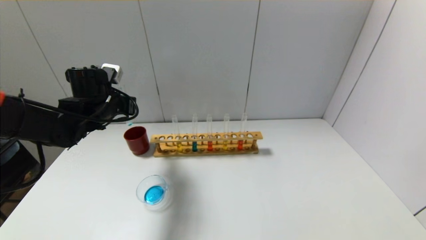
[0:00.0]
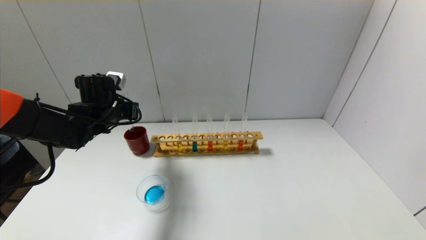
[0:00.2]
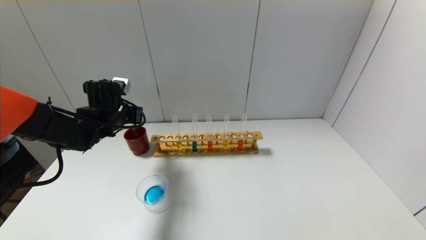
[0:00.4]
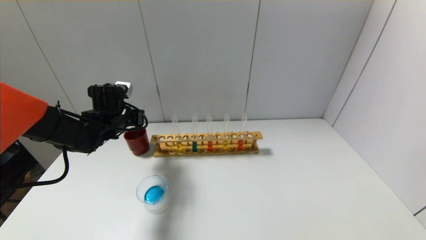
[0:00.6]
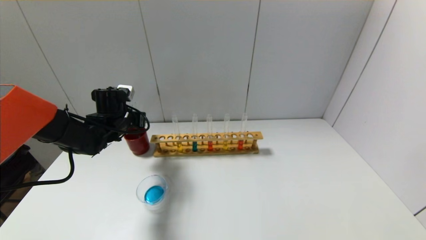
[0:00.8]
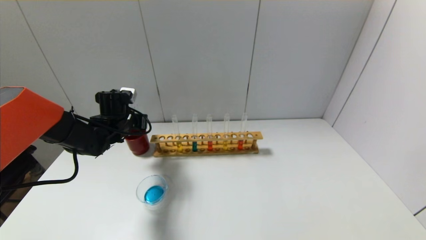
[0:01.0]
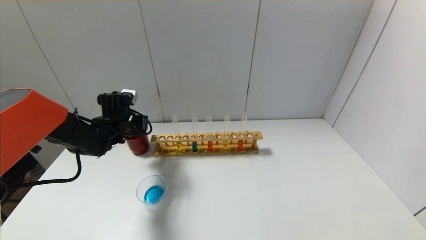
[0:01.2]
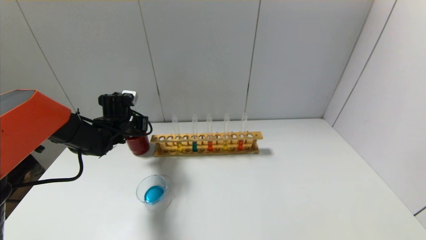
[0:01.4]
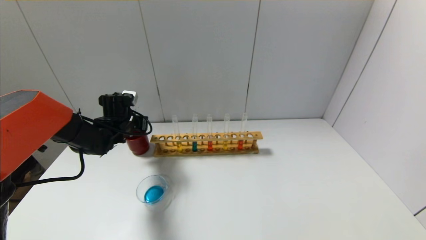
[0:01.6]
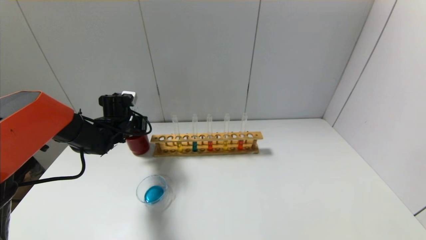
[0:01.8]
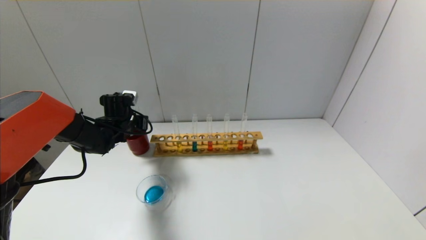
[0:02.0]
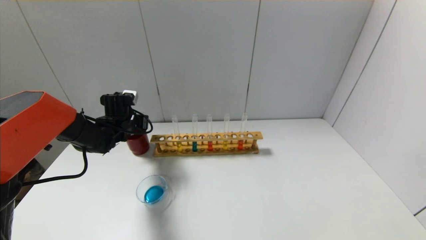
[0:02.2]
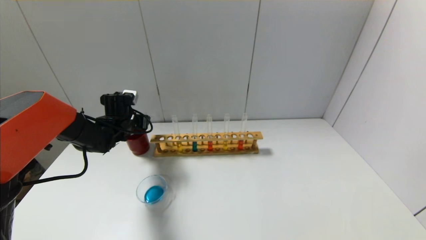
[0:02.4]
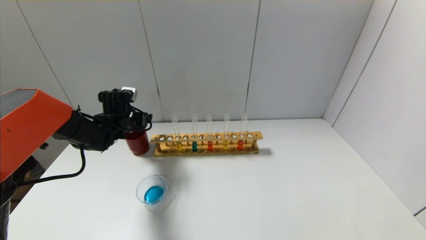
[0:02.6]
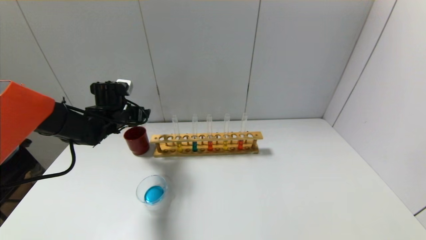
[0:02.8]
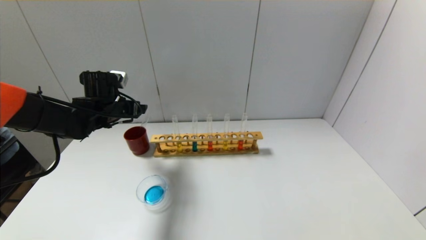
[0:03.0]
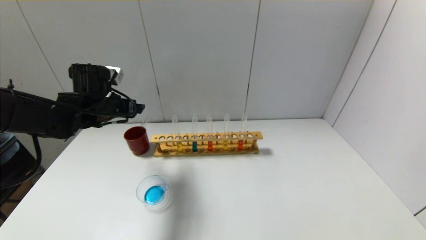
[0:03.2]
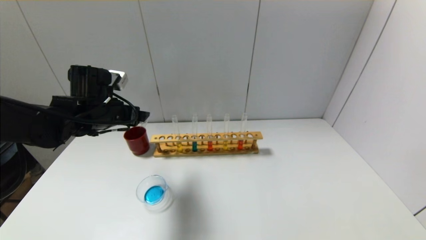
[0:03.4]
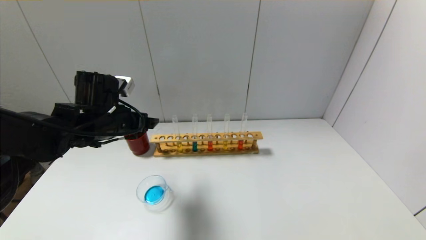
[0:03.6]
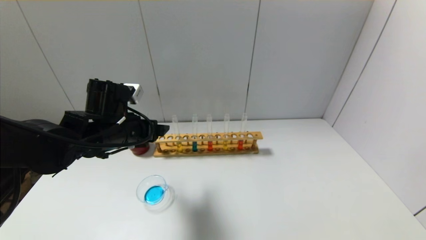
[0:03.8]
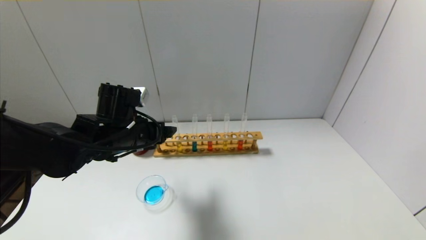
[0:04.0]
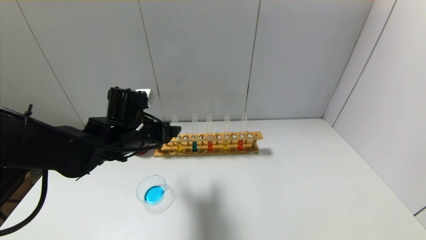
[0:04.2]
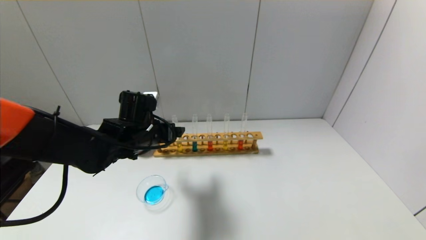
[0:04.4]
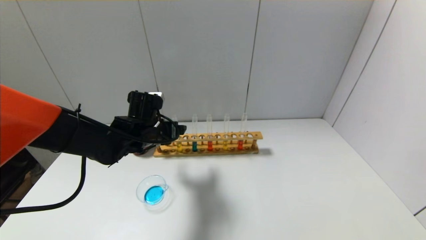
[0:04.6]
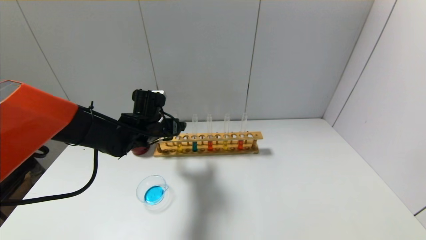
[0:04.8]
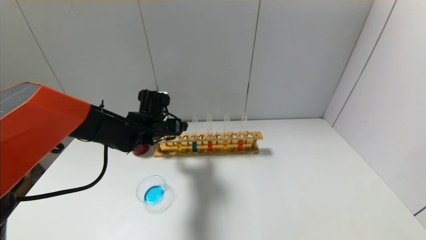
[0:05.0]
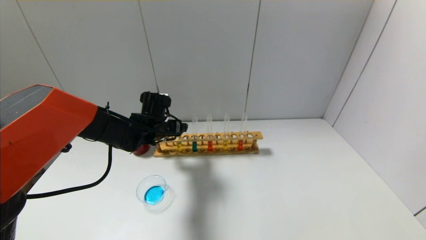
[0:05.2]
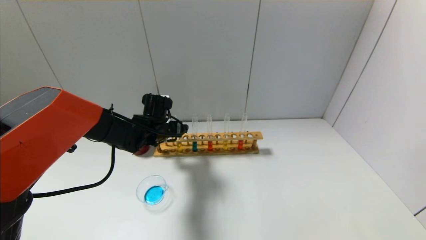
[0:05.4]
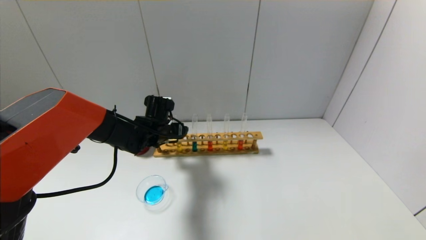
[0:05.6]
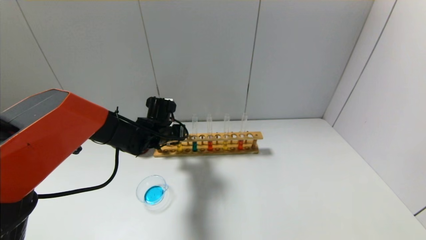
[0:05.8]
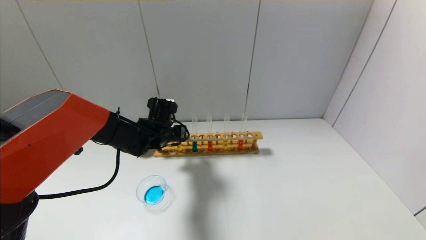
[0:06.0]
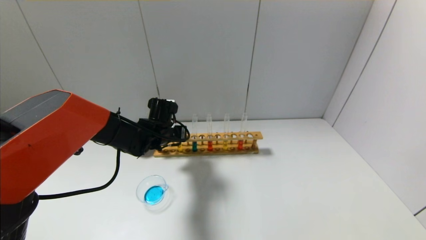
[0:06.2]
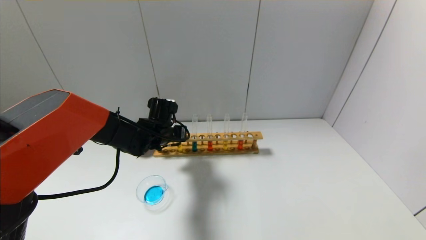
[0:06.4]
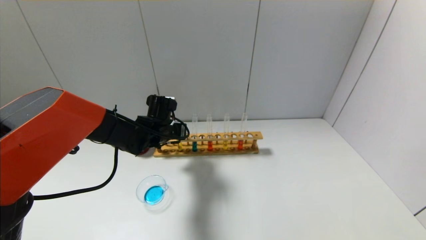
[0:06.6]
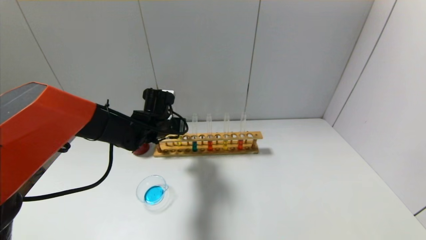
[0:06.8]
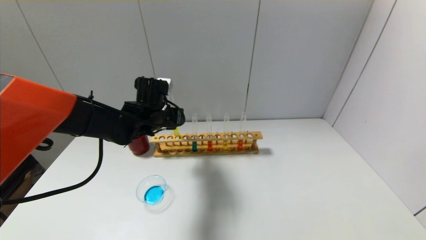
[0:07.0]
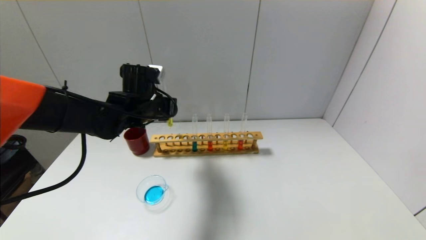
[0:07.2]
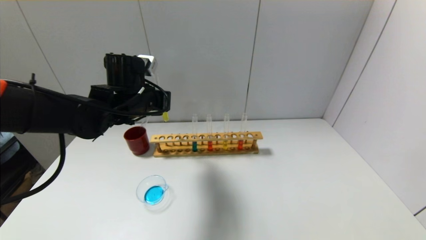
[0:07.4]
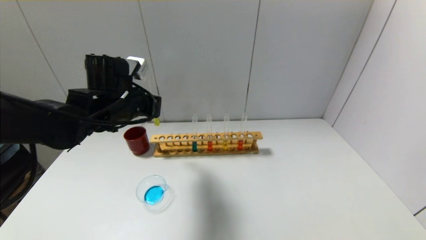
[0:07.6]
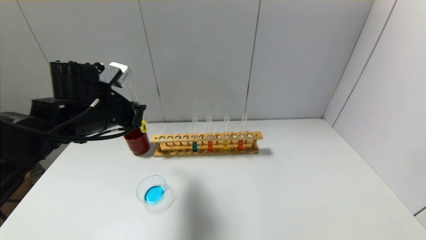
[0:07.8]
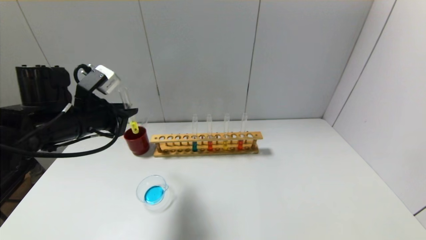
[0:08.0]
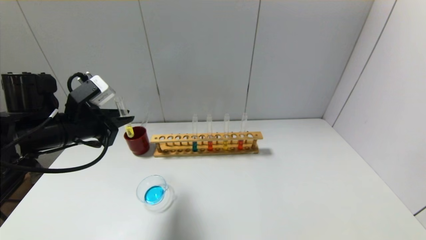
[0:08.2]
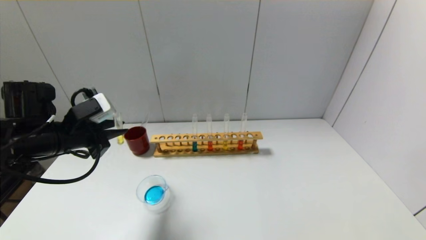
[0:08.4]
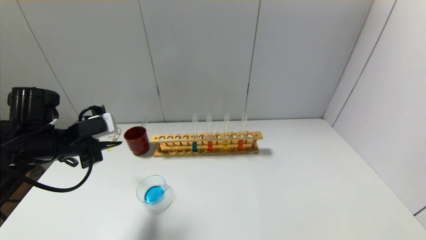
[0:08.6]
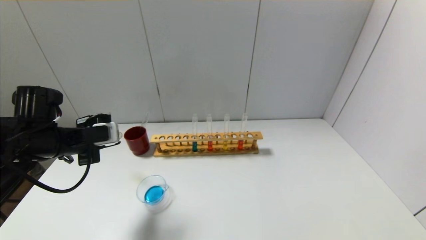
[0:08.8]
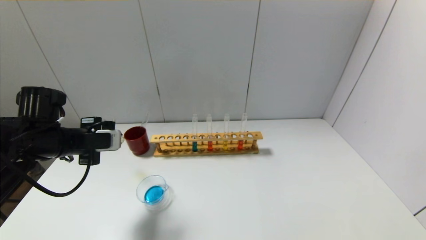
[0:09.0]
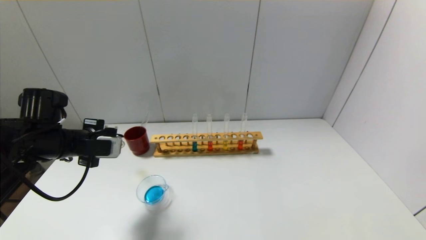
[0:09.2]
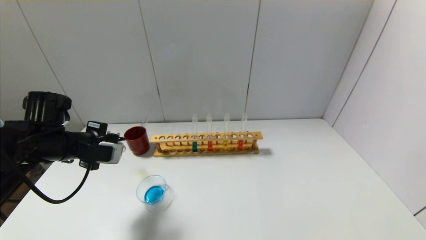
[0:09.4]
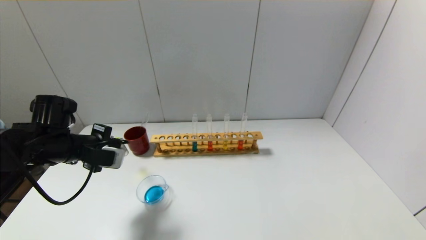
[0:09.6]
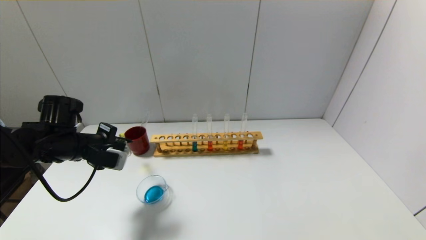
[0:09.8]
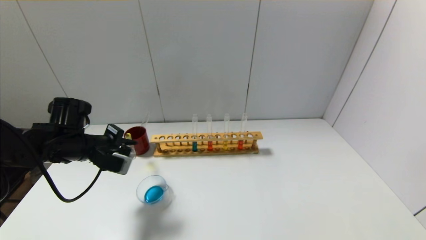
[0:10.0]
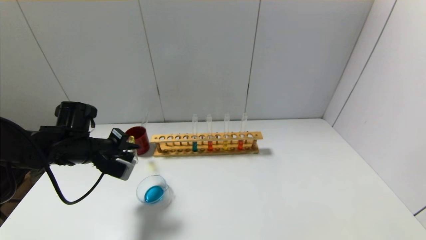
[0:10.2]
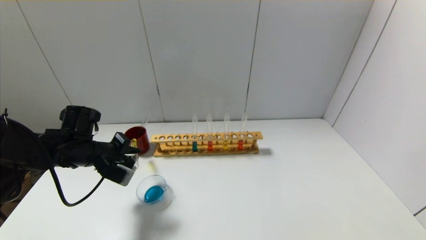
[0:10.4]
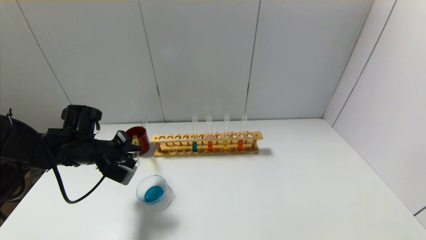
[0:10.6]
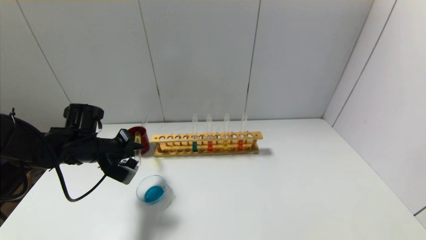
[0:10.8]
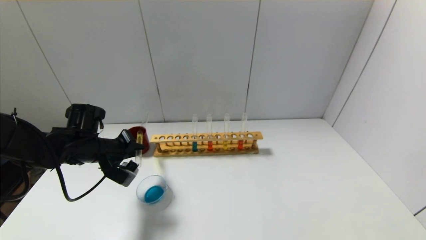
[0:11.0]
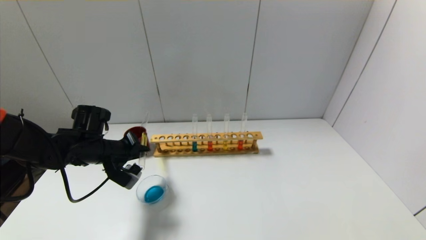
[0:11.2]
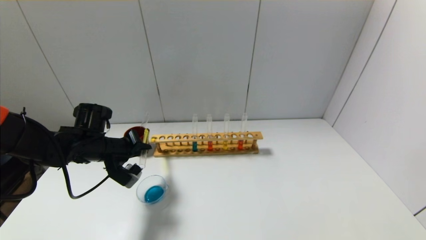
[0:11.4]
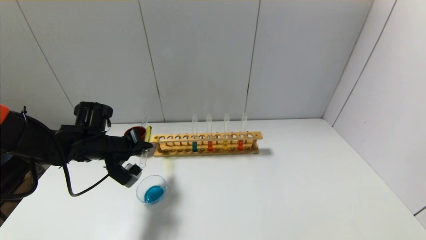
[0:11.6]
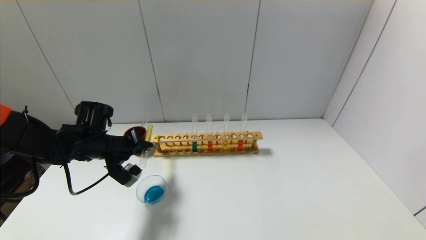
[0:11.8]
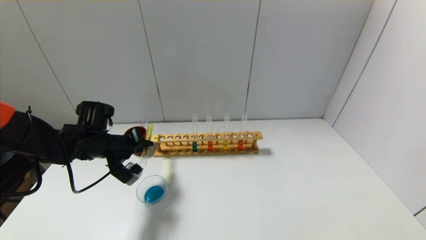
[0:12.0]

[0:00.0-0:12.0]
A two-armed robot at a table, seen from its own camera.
Step, 0:00.0 to 0:02.2: Place the test tube into the brown cup with the left gripper.
Step, 0:02.4 to 0:06.2: Grasp the yellow reagent with the left gripper.
0:00.0 to 0:01.6: The left gripper heads downward and forward, covering about 10 cm.
0:01.6 to 0:03.0: The left gripper is displaced upward by approximately 5 cm, and opens its fingers.
0:03.0 to 0:04.4: The left gripper moves to the right and backward, about 10 cm.
0:04.4 to 0:06.0: The left gripper moves forward, roughly 5 cm, and closes.
0:06.0 to 0:07.6: The left gripper moves upward, backward and to the left, approximately 15 cm.
0:07.6 to 0:09.0: The left gripper heads to the left, covering some 10 cm.
0:09.0 to 0:10.4: The left gripper goes roughly 5 cm downward.

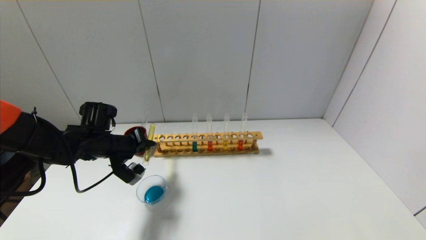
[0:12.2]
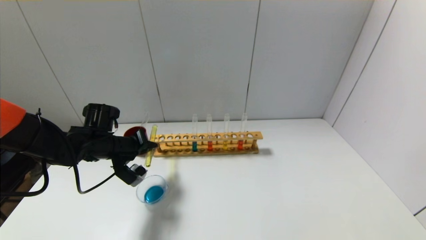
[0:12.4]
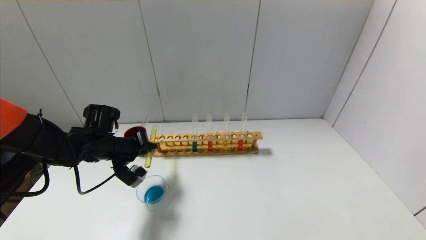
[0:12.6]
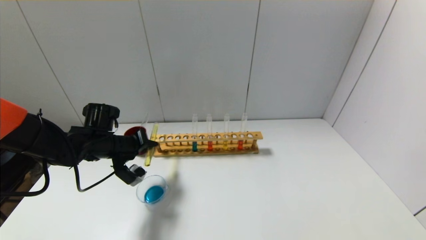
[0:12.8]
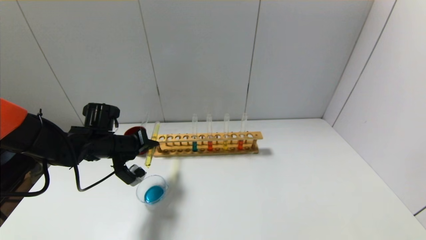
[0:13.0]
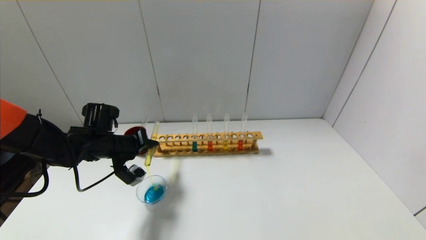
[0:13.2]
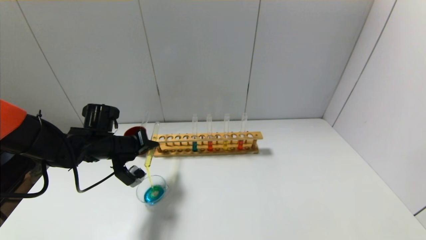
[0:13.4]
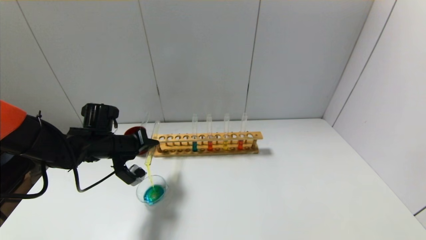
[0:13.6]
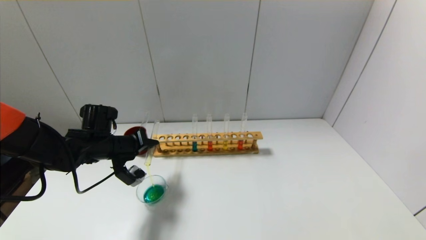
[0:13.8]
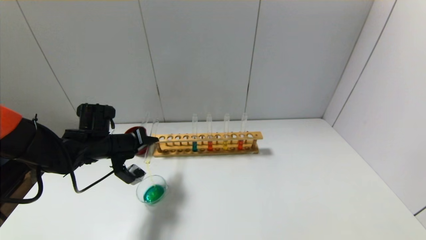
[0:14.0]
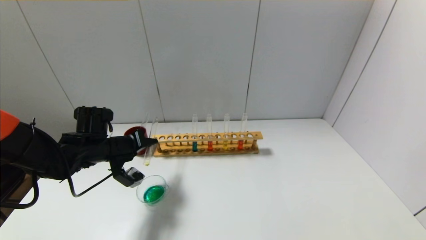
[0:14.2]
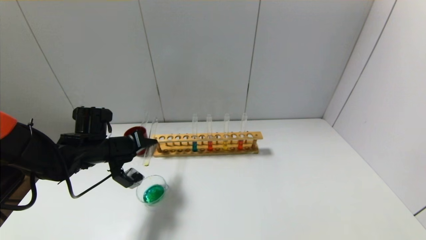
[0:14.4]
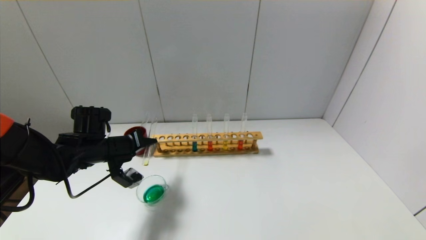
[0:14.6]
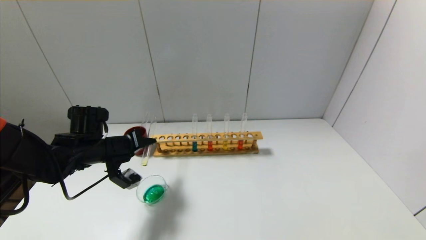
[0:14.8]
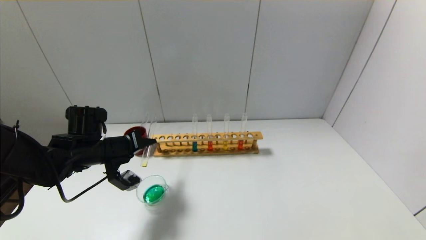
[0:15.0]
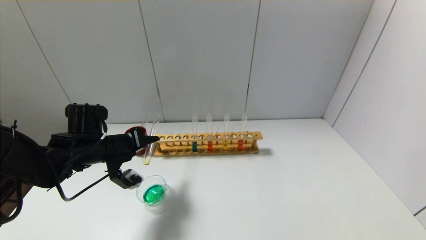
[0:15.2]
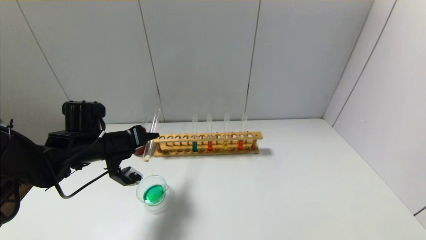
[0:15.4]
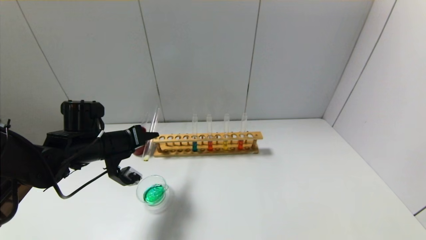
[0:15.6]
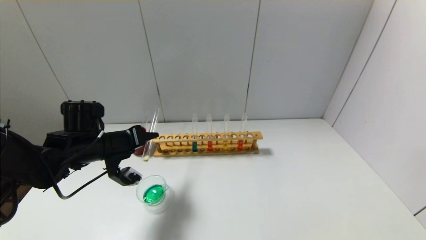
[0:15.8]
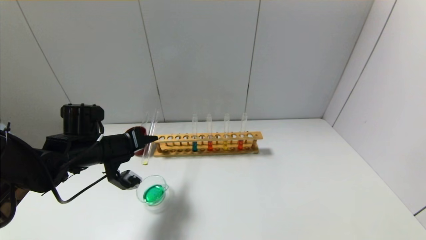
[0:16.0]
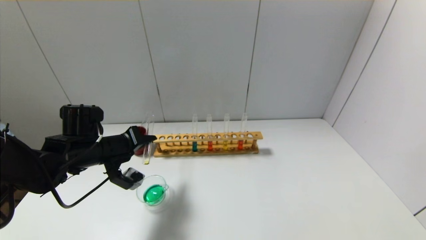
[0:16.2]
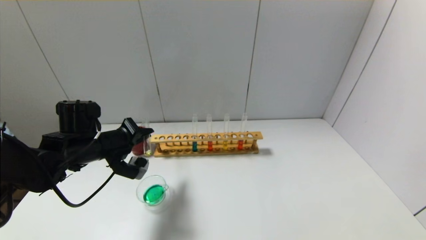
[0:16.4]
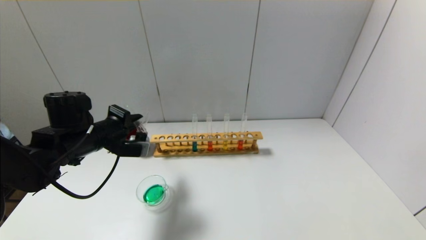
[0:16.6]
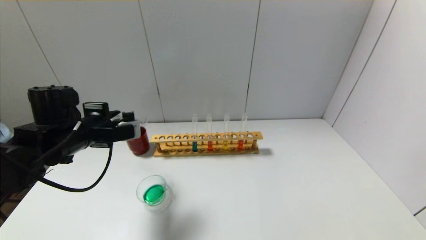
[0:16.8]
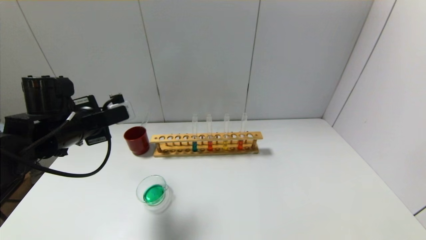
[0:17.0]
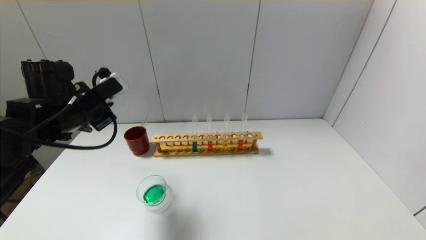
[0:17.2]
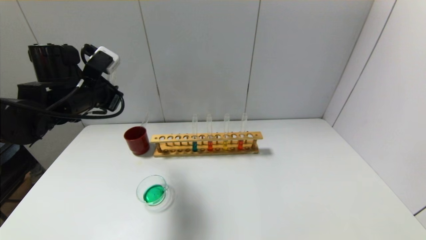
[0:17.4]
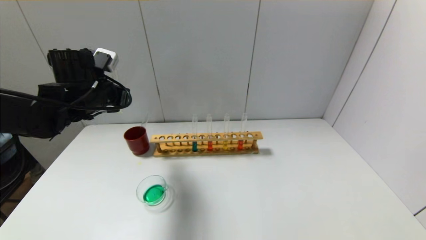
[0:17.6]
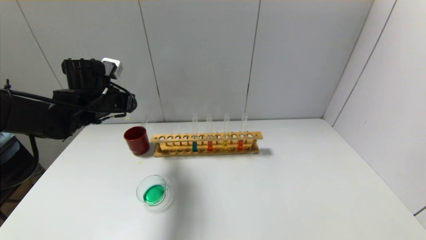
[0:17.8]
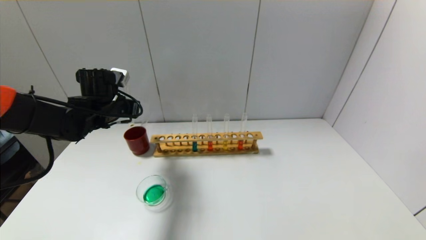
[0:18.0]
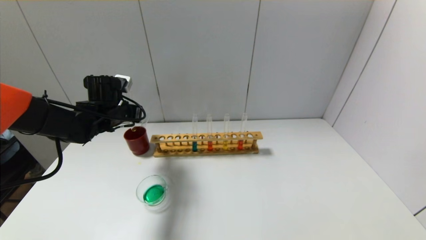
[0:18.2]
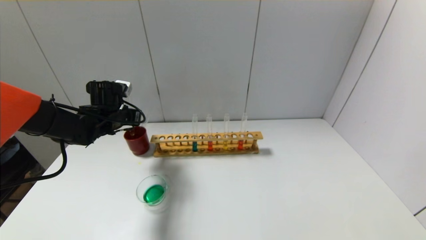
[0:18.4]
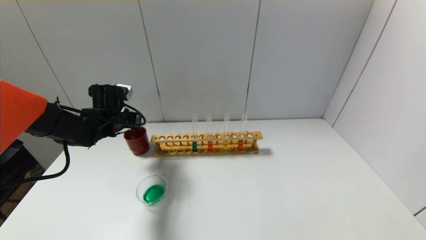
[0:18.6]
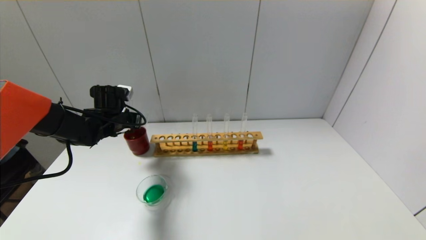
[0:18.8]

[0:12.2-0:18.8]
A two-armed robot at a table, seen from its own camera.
Step, 0:12.2 to 0:16.4: Pour the yellow reagent into the graduated cylinder with the left gripper.
0:12.2 to 0:13.8: The grippers stay close to where they were, moving slightly.
0:13.8 to 0:15.4: The grippers move only a little.
0:15.4 to 0:17.2: The left gripper shifts roughly 10 cm upward.
0:17.2 to 0:18.8: The left gripper heads forward and downward, covering some 15 cm.
